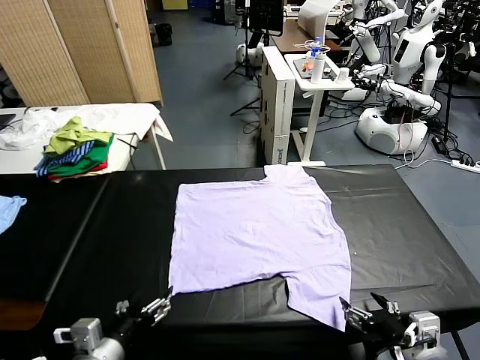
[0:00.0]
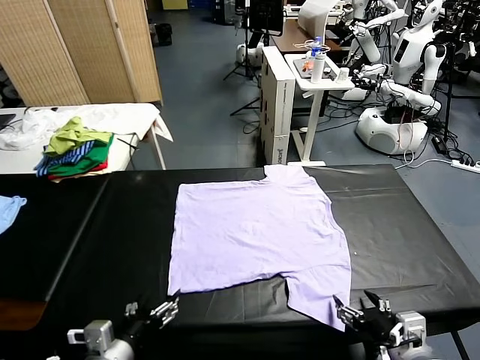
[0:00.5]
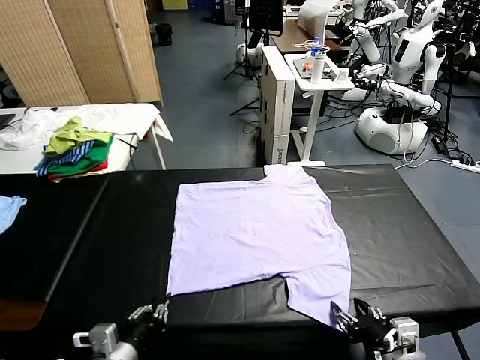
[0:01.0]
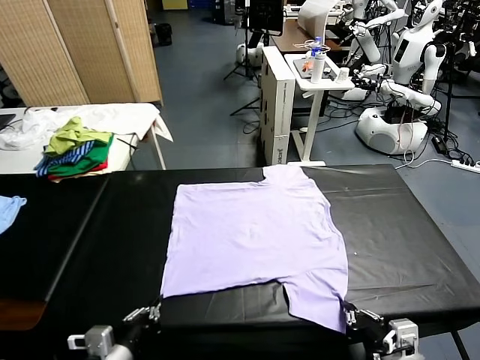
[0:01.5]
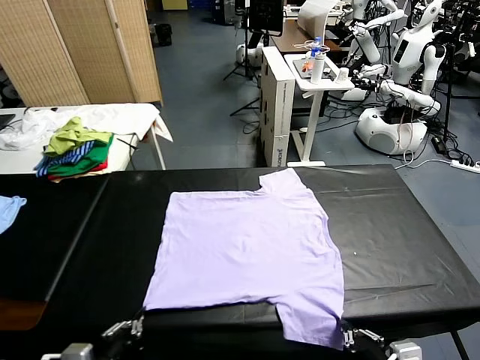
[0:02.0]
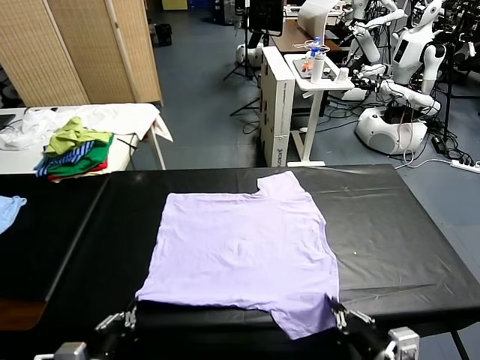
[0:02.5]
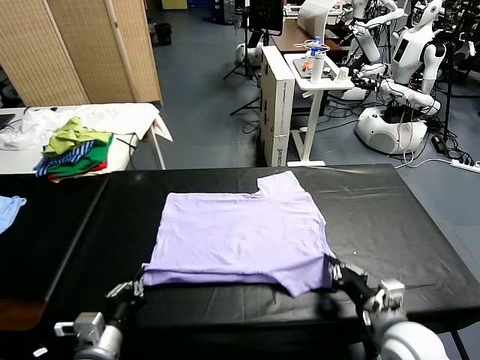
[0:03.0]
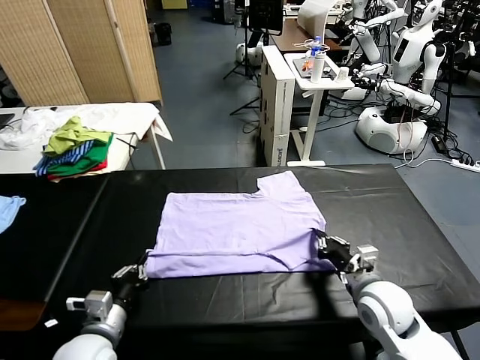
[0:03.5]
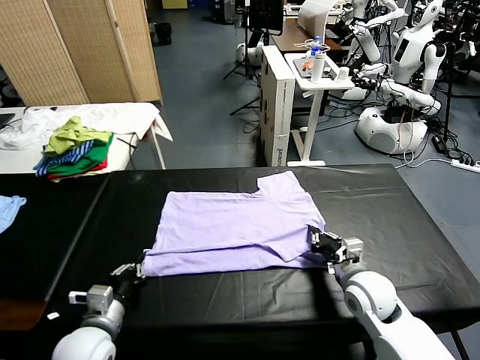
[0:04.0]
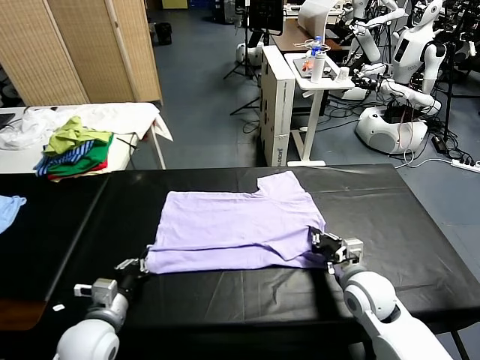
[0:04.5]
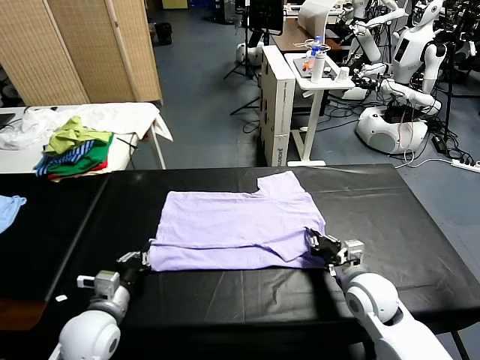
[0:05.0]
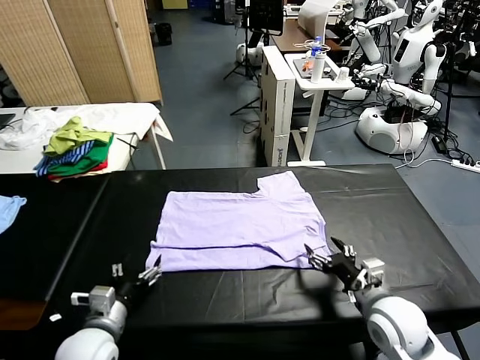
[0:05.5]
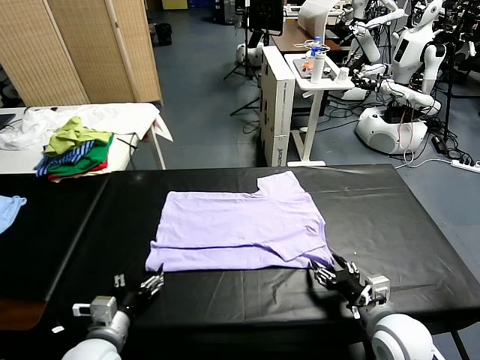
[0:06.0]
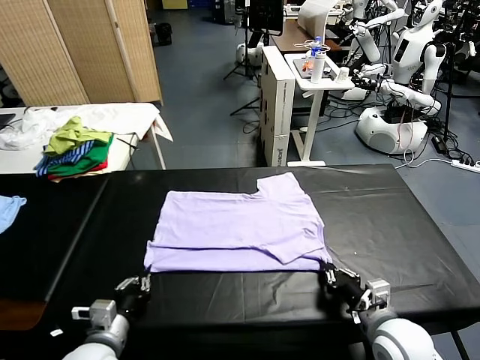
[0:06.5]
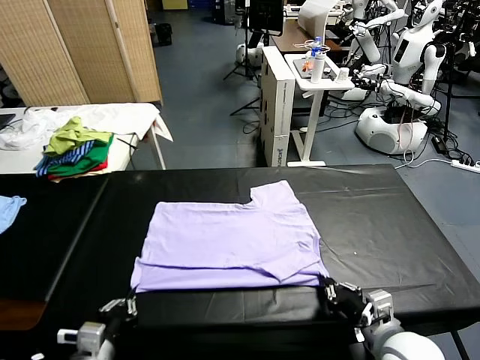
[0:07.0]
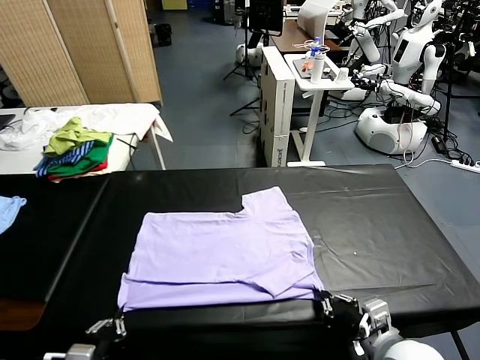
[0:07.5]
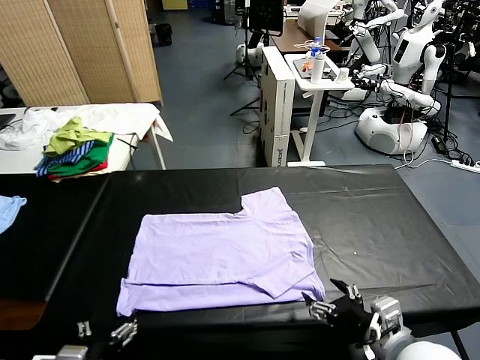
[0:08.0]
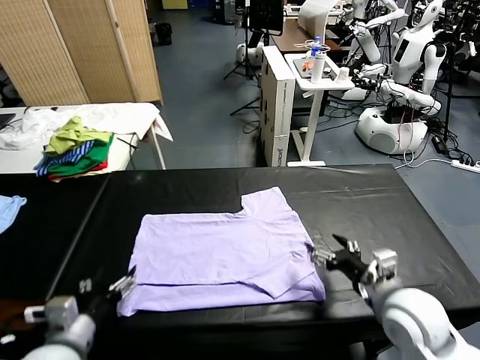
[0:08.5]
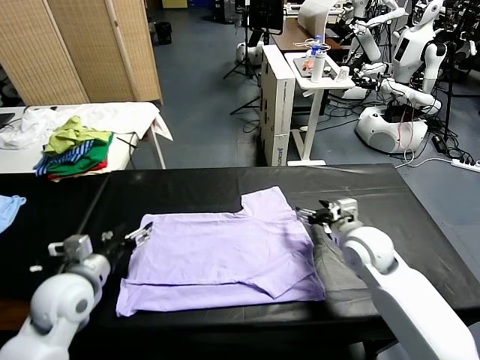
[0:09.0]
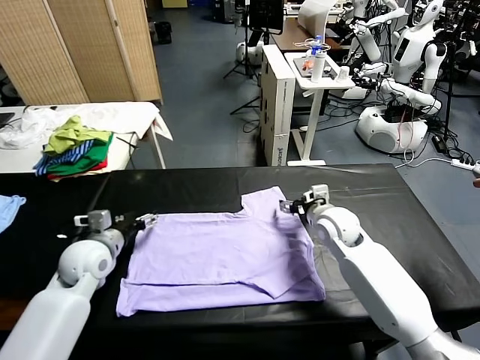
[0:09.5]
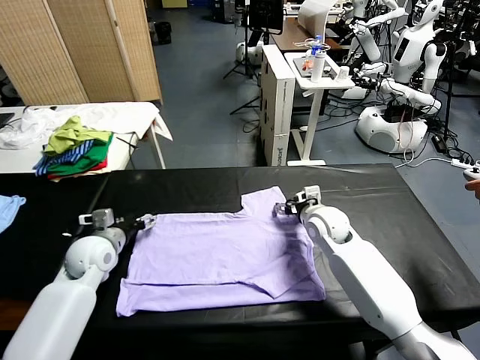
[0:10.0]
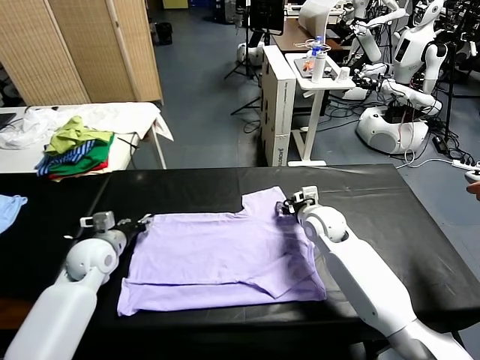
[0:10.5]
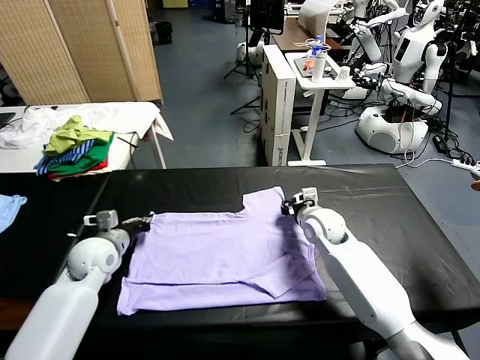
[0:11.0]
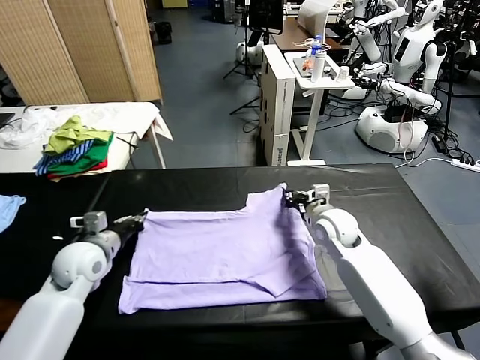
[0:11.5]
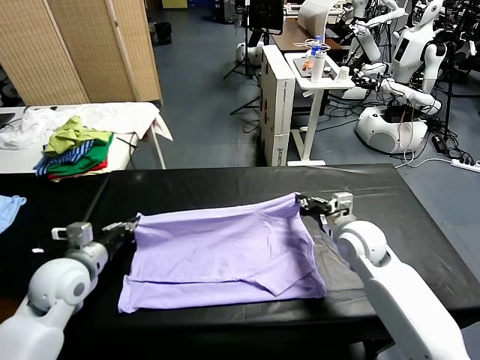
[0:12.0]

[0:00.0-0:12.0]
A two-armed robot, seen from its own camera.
Task of the whole recording: fold and organize the clothes.
Step, 0:00.0 to 0:01.5: use both grippers simultaneously to clamp the lower edge of the clothing fabric.
Step, 0:02.0 to 0:05.0: use both grippers to drag the lower edge of the fabric forward and fold it over the upper edge.
Step, 0:05.5 to 0:07.5: Drag the clothes downward with both gripper.
Step, 0:08.0 to 0:11.0: use both grippers simultaneously to clamp the upper edge of the clothing fabric.
0:02.0 to 0:04.0: The left gripper is displaced forward and downward by roughly 15 cm, while the right gripper goes roughly 20 cm forward.
0:04.0 to 0:06.0: The right gripper goes about 10 cm backward, and opens its fingers. Meanwhile the left gripper opens up.
0:06.0 to 0:08.0: The left gripper is displaced backward and upward by about 10 cm, and closes, then opens again. Meanwhile the right gripper moves upward, some 10 cm, and opens.
0:08.0 to 0:10.0: The grippers both shift forward by approximately 30 cm.
0:10.0 to 0:12.0: The left gripper moves backward and upward, some 10 cm, and closes its fingers; the right gripper goes approximately 15 cm backward, to the right and upward, and closes up.

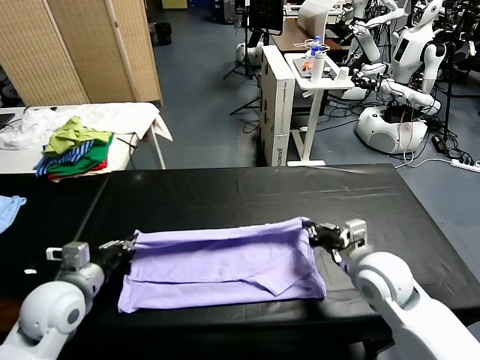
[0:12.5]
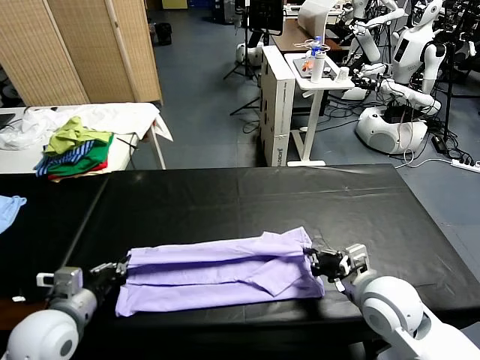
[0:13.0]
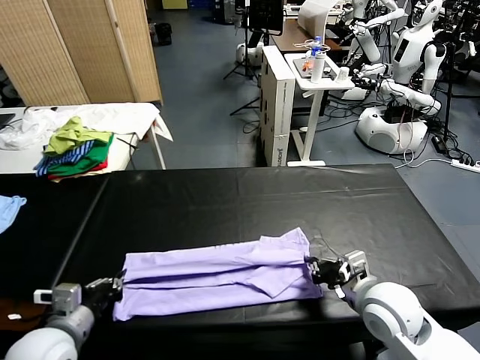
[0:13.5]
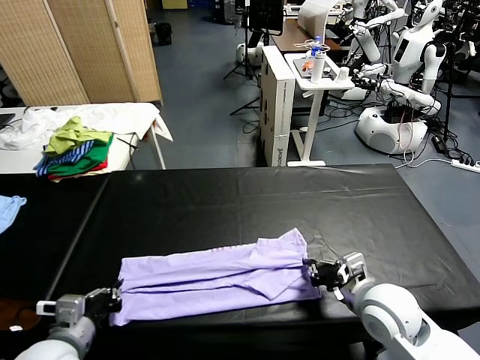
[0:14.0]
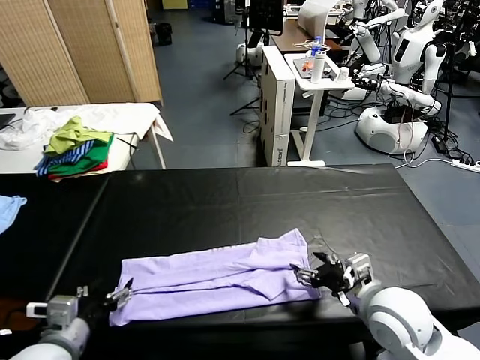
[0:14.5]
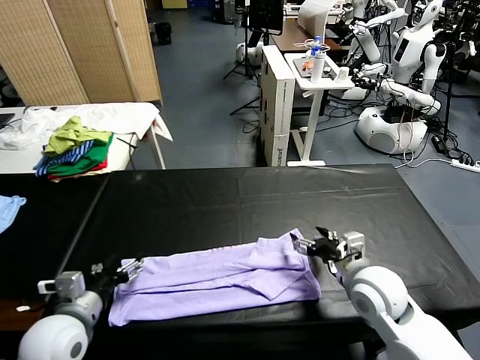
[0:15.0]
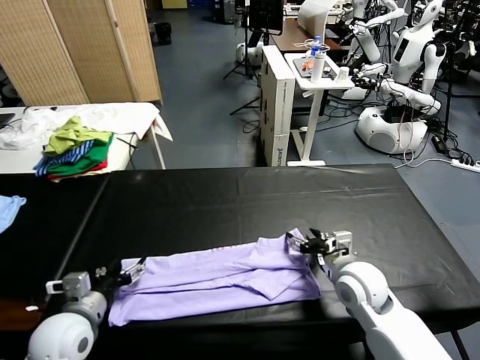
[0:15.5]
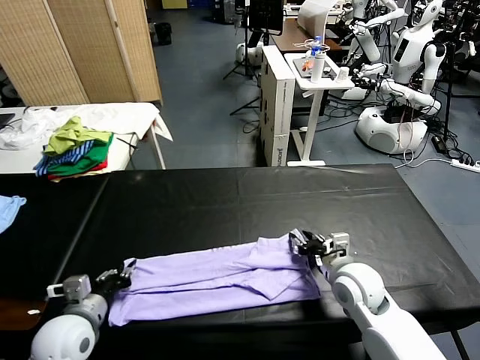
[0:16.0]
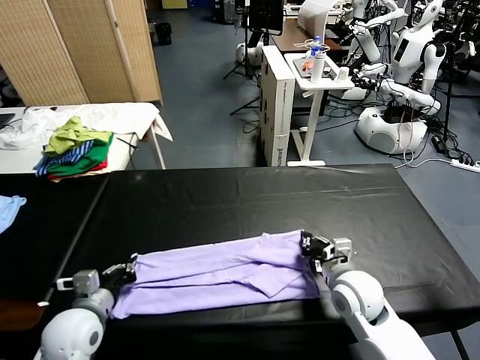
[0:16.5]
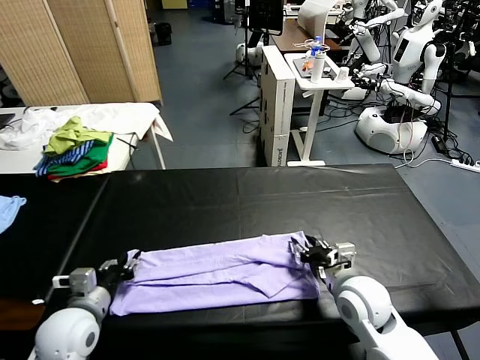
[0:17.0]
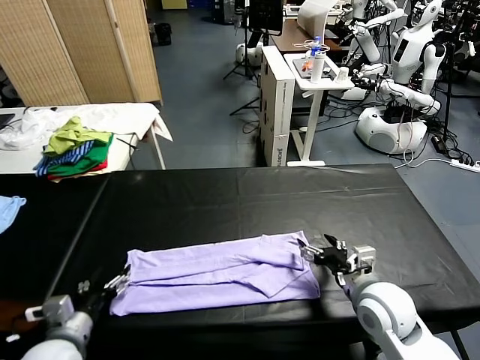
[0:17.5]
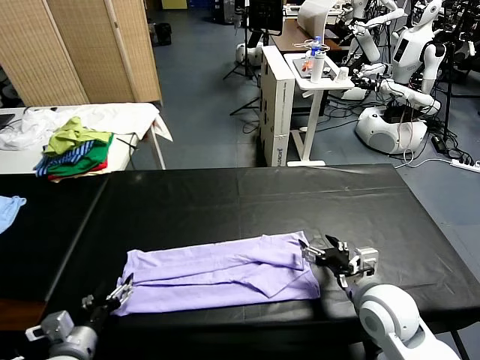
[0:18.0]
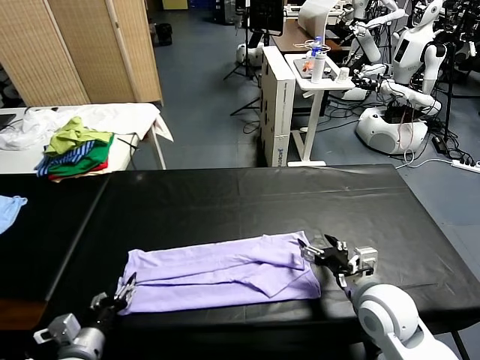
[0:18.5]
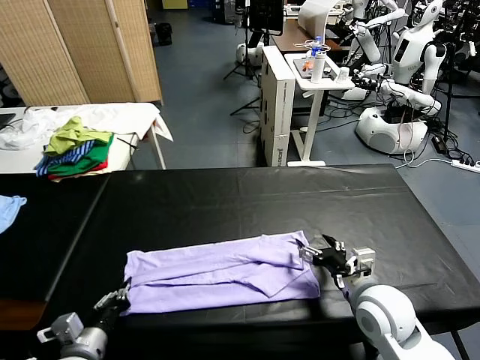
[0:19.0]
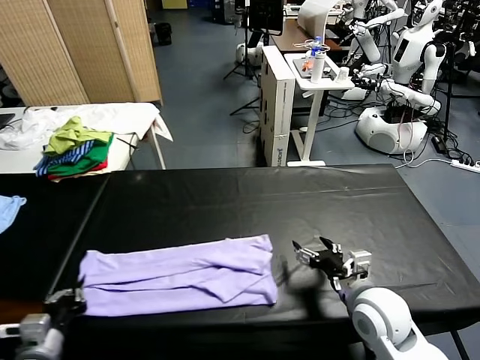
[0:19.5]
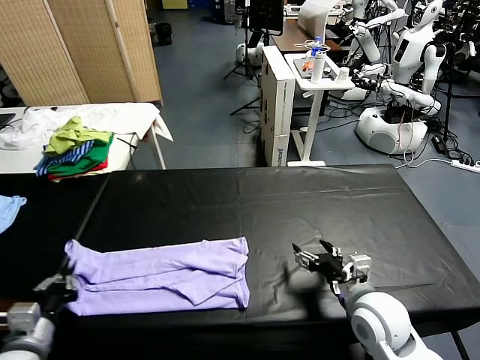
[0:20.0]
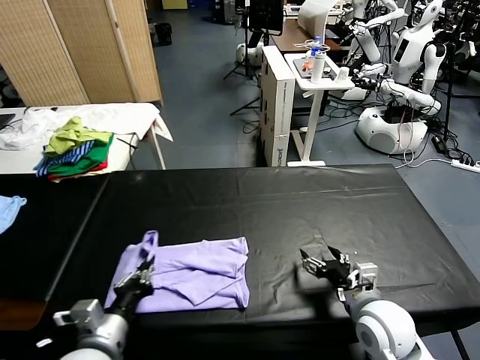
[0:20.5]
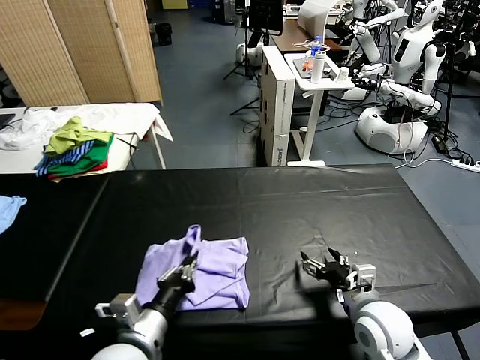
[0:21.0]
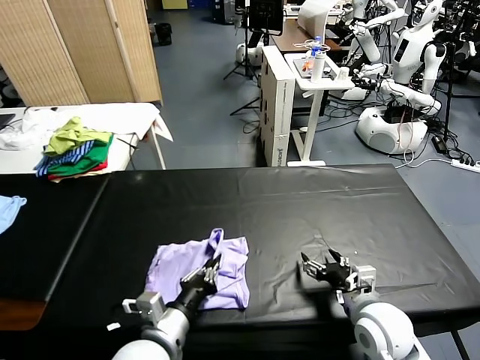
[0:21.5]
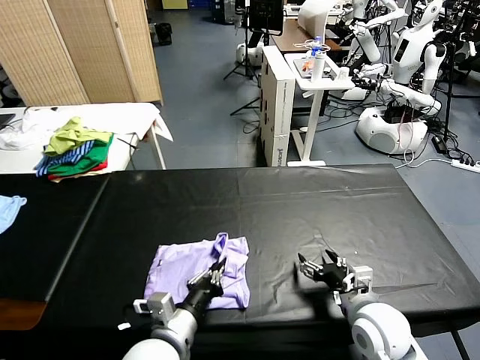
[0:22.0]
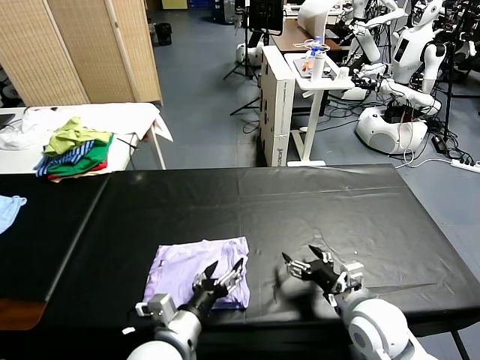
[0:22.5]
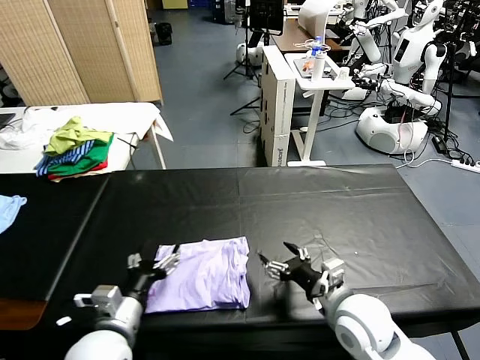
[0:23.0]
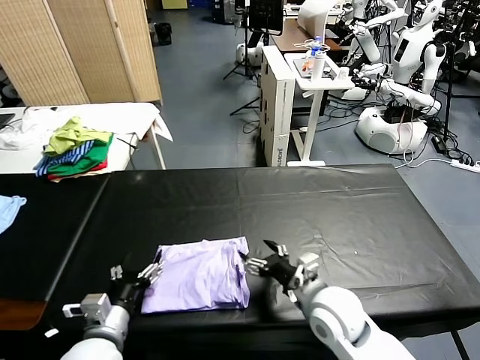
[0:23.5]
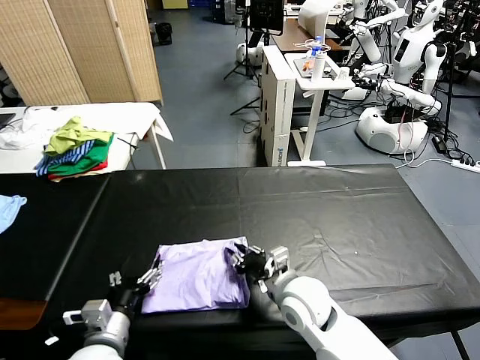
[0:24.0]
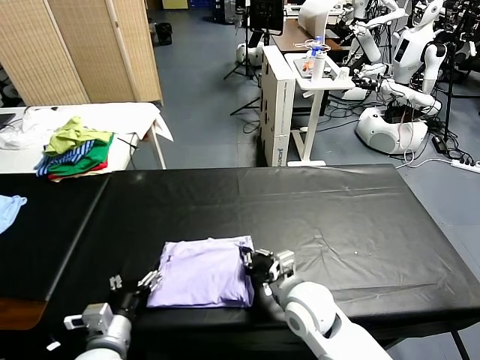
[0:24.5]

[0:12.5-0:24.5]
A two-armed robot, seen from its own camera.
Task of the whole recording: fold and organize the clothes.
Step, 0:15.0 to 0:19.0: use the left gripper to clamp the left edge of the fabric.
Step, 0:19.5 to 0:22.5: use the left gripper to drag the left edge of the fabric to the left and folds it over the right edge.
0:12.5 to 0:14.5: The left gripper goes approximately 10 cm backward, and opens. The right gripper opens its fingers.
0:14.5 to 0:16.5: The right gripper is displaced downward and forward by roughly 10 cm, and closes its fingers, while the left gripper moves forward and downward, roughly 10 cm, and closes.
0:16.5 to 0:18.5: The right gripper changes place by roughly 5 cm, and opens up. The left gripper moves backward, roughly 10 cm, and opens.
0:18.5 to 0:20.5: The left gripper moves upward and to the right, some 10 cm, and closes up.
0:20.5 to 0:22.5: The left gripper travels to the right by about 10 cm, and opens up.
0:22.5 to 0:24.5: Both grippers travel together to the left, roughly 10 cm. The right gripper closes.

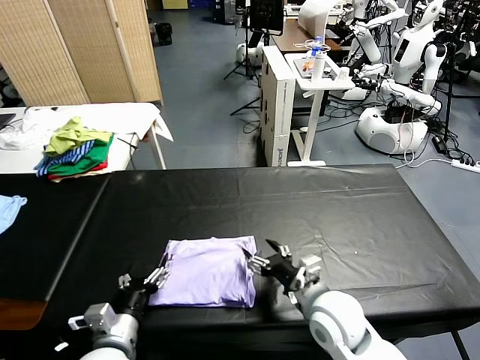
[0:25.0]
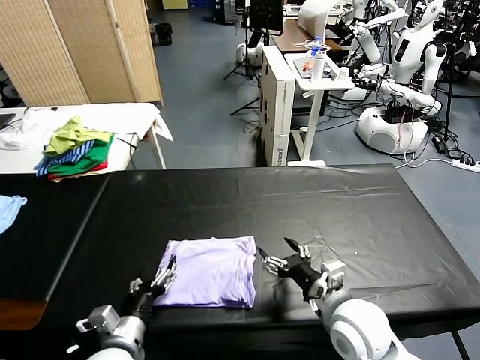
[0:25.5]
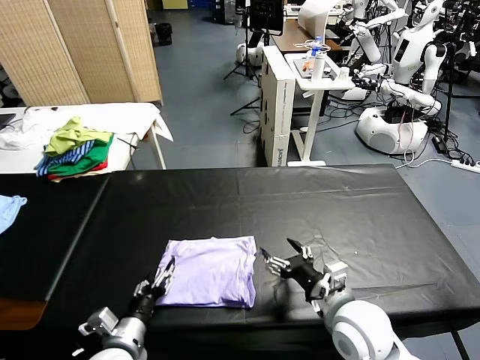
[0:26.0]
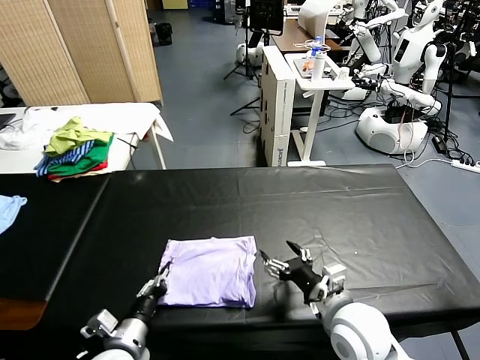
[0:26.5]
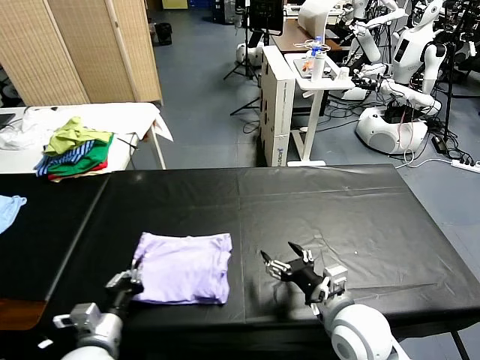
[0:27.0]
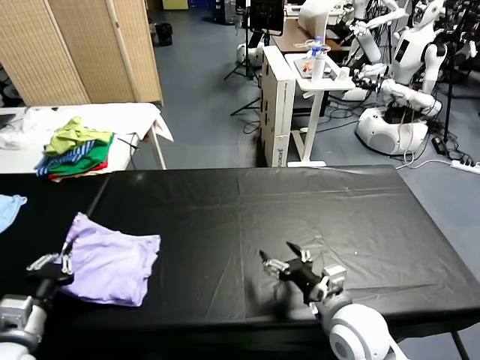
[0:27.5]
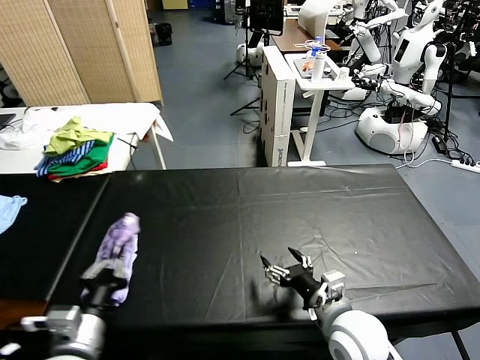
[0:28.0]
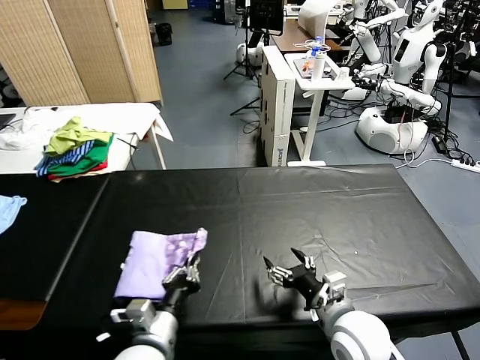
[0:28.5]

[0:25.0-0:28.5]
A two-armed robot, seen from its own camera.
Task of the whole recording: fold and organize the clothes.
0:25.0 to 0:27.0: The left gripper closes.
0:27.0 to 0:28.5: The left gripper heads to the right, covering approximately 10 cm.
